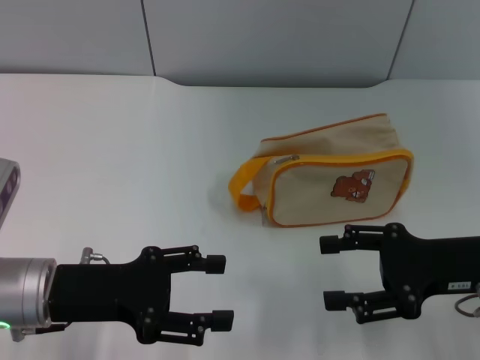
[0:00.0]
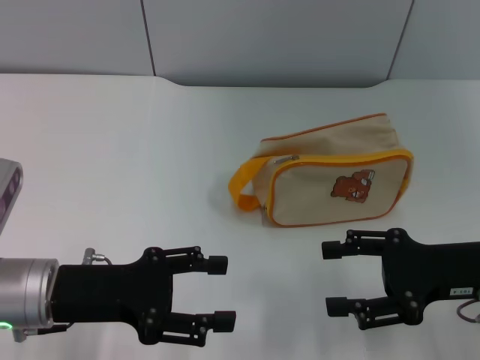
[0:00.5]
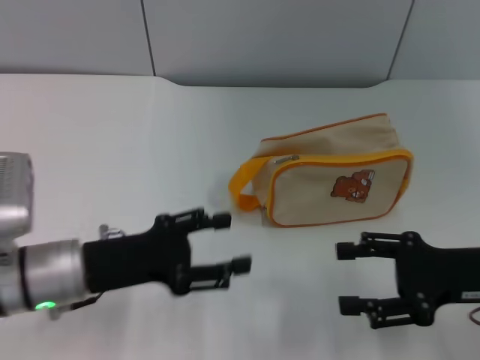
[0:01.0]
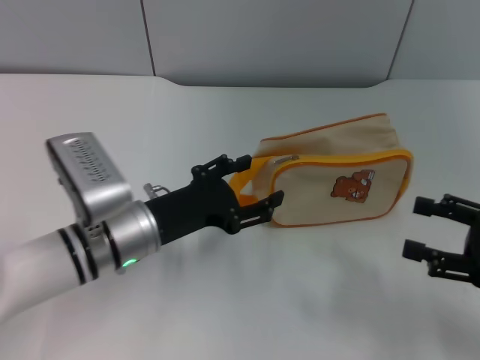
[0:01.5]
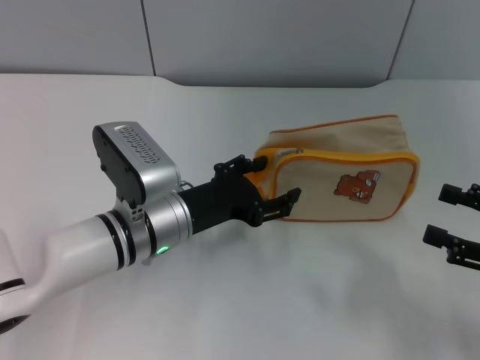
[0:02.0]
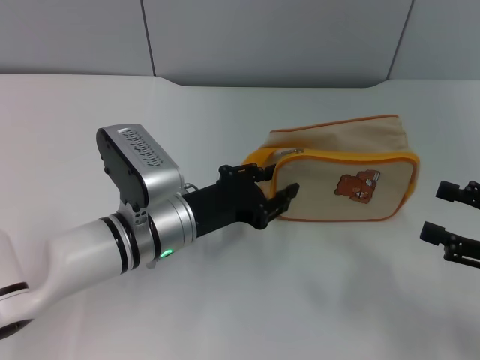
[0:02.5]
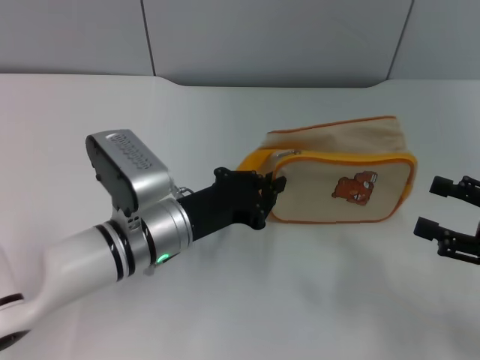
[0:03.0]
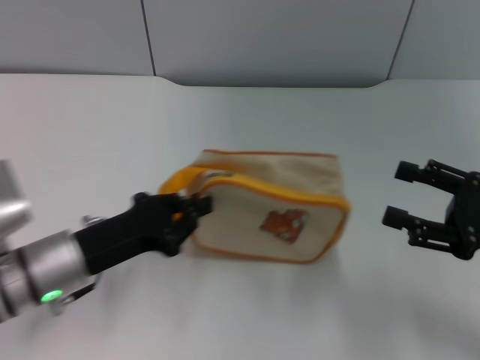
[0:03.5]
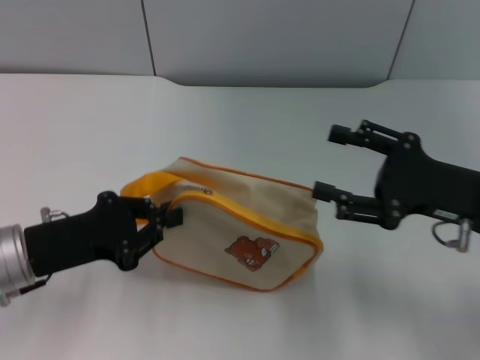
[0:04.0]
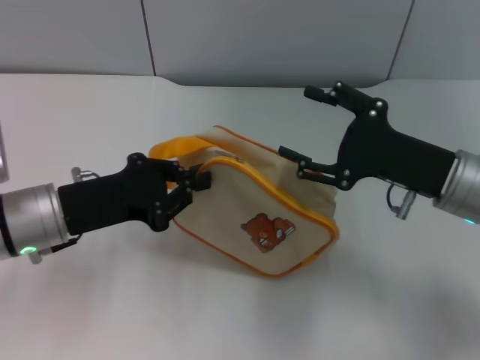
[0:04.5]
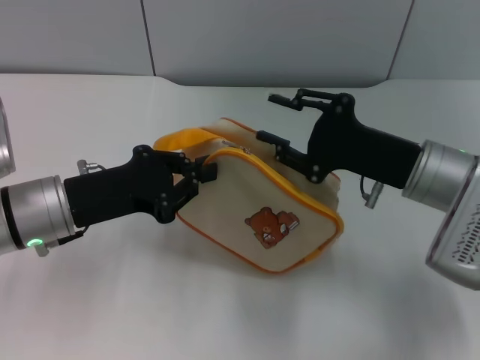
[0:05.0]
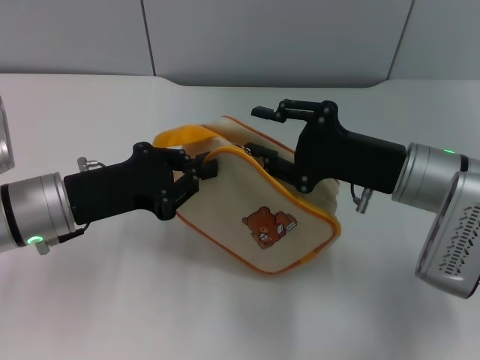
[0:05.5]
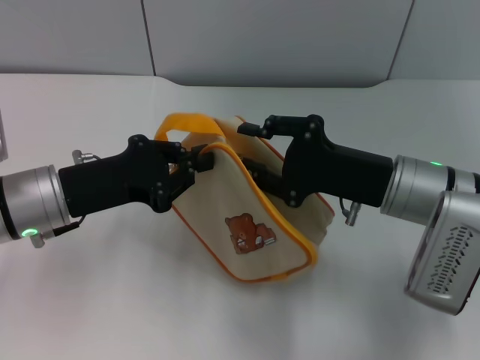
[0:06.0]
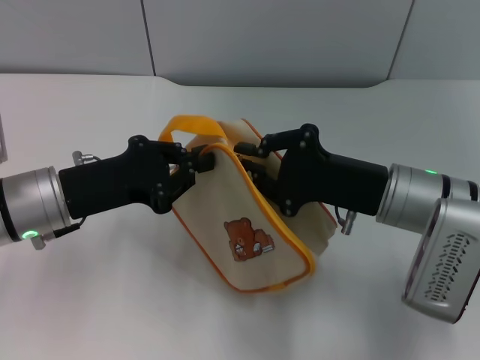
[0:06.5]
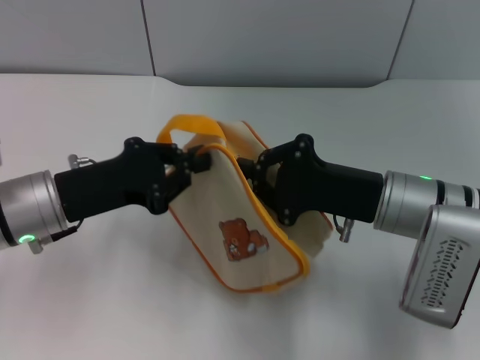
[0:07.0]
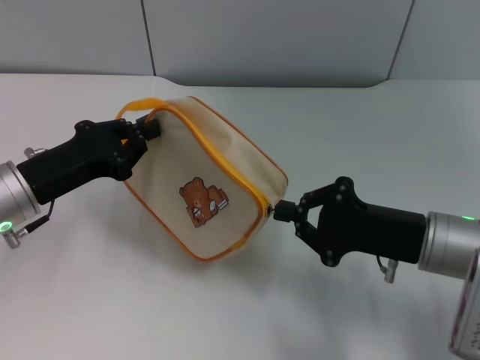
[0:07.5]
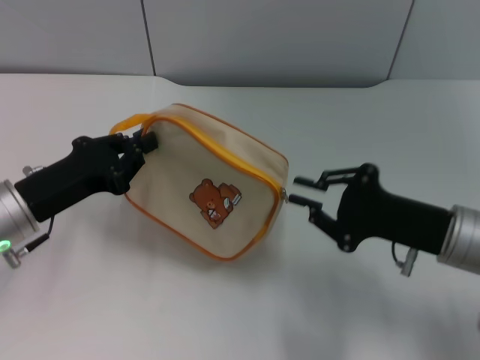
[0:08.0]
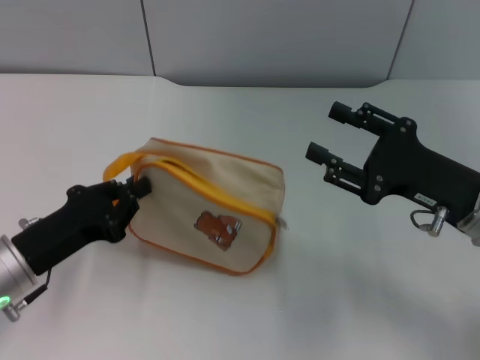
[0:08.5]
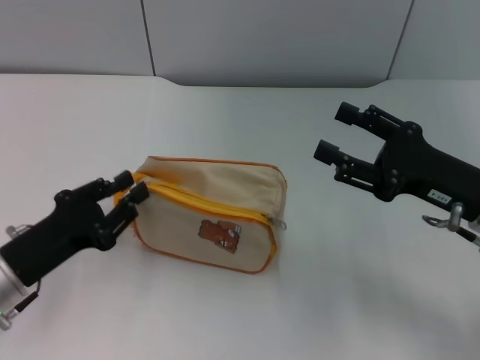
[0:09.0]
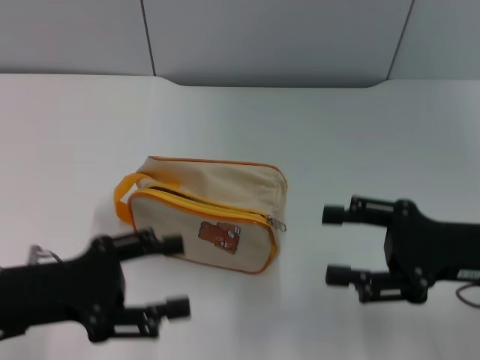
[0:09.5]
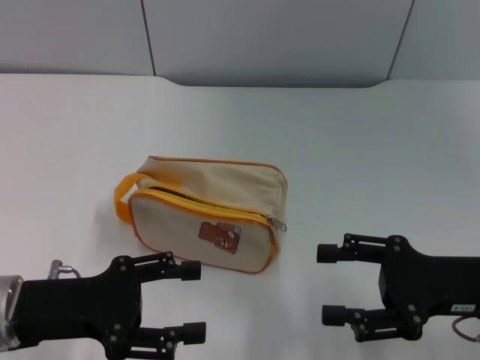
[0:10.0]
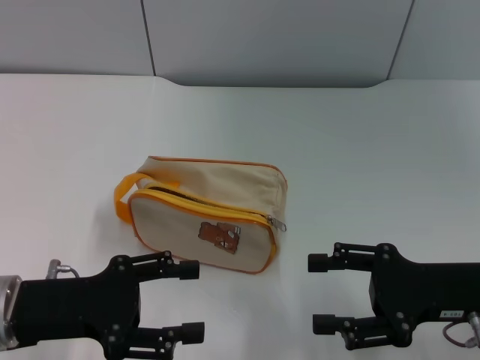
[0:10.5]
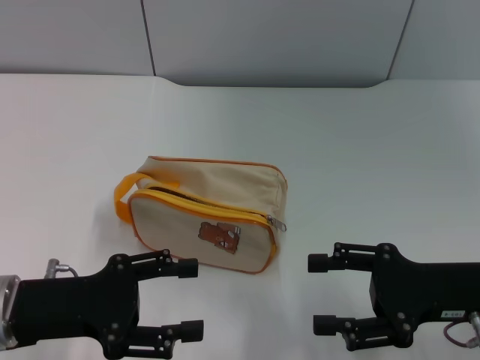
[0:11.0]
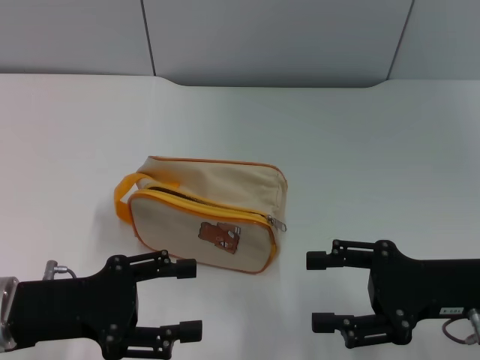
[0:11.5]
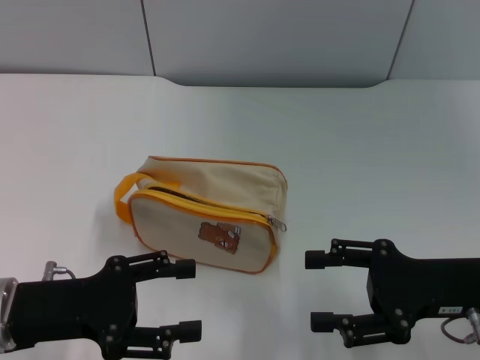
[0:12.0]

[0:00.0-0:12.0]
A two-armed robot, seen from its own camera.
Step, 0:00.0 to 0:04.0: Pick up the bag with left gripper.
Step, 0:04.5 to 0:08.0: Unzip the zipper of bag with right gripper.
Step, 0:08.5 to 0:09.0: Place the bag on the table with left gripper.
0:00.0 to 0:02.0: The right gripper heads to the right, covering roughly 10 cm. The left gripper heads to the right and forward, covering approximately 15 cm.
0:02.0 to 0:04.0: The left gripper moves to the left and backward, roughly 15 cm, and closes its fingers. The right gripper heads to the left and forward, covering about 10 cm.
0:04.0 to 0:06.0: The left gripper ends up some 5 cm from where it was. The right gripper heads to the left, covering approximately 10 cm.
0:06.0 to 0:08.0: The right gripper is displaced to the right by approximately 5 cm, and closes its fingers.
0:08.0 to 0:10.0: The right gripper ends up about 5 cm from where it was, and opens its fingers; the left gripper is displaced backward by approximately 5 cm, and opens.
0:10.0 to 0:12.0: Both grippers stay put.

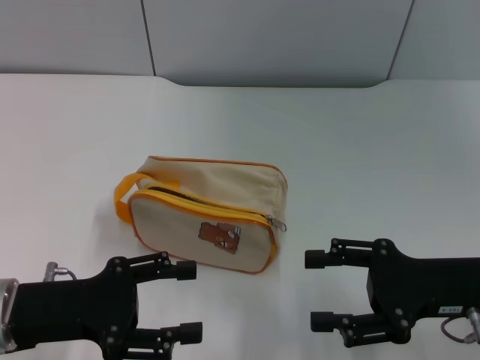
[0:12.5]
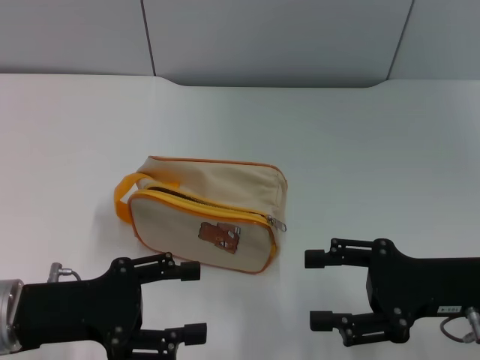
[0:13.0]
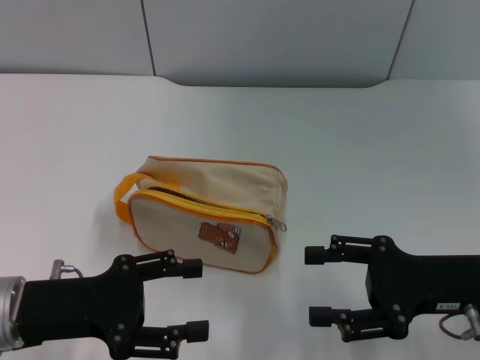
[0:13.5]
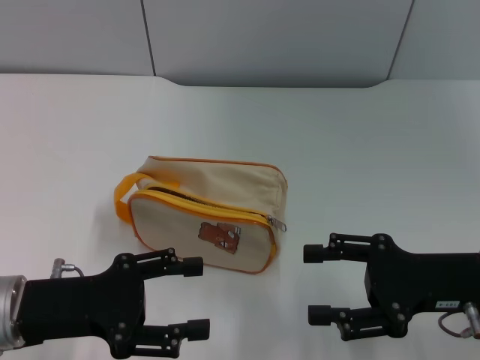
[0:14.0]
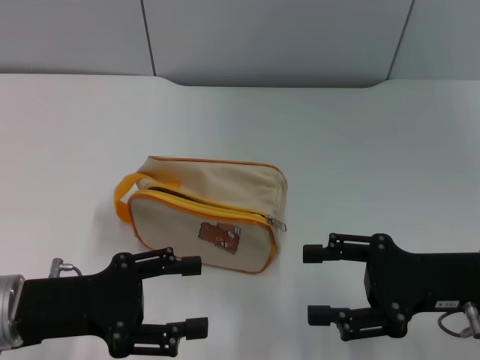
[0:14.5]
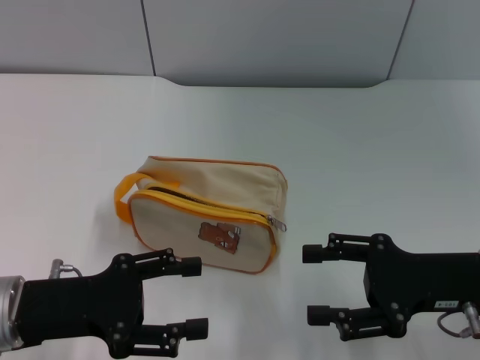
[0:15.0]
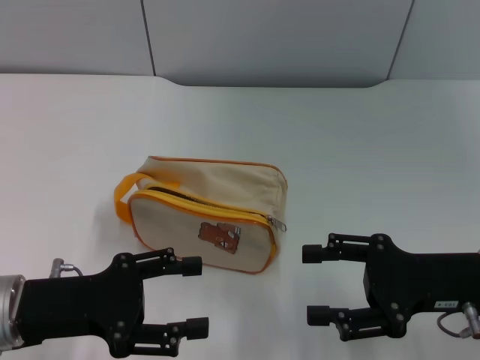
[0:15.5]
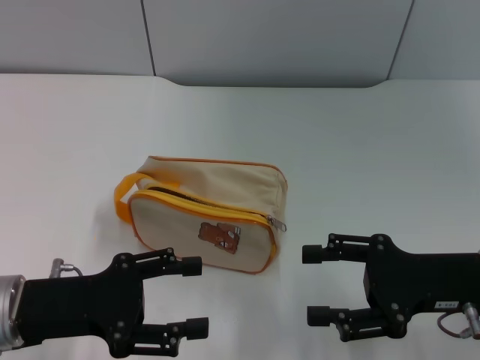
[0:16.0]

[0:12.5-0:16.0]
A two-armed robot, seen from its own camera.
0:12.5 to 0:16.0: Neither gripper changes place.

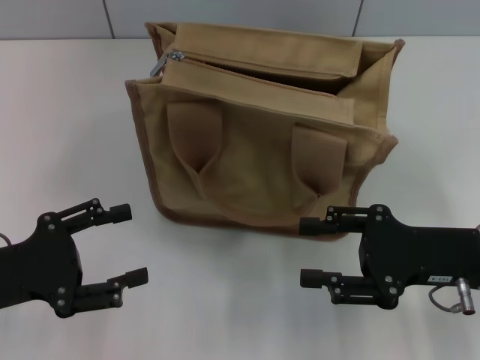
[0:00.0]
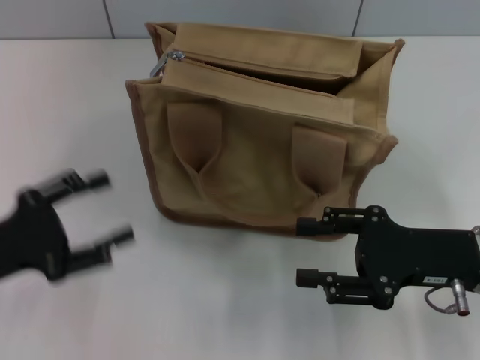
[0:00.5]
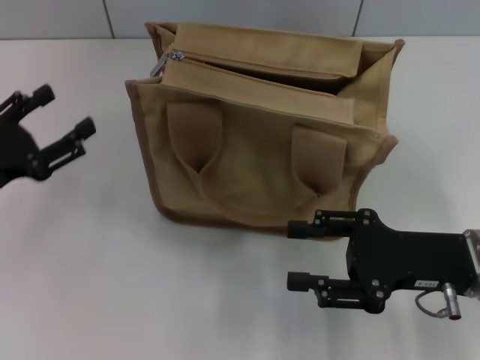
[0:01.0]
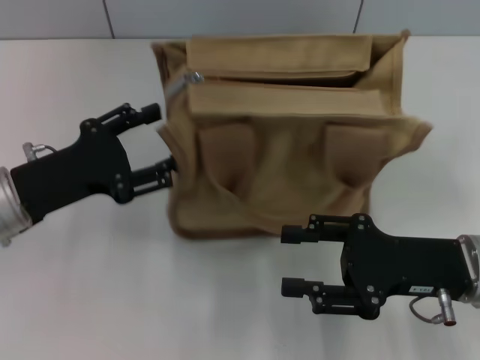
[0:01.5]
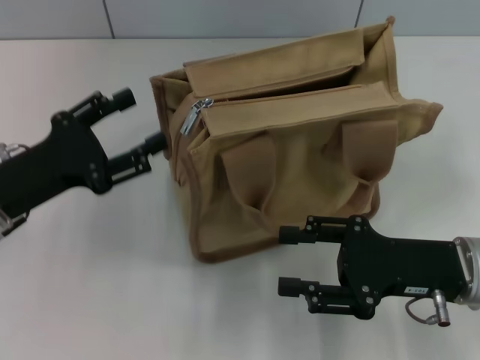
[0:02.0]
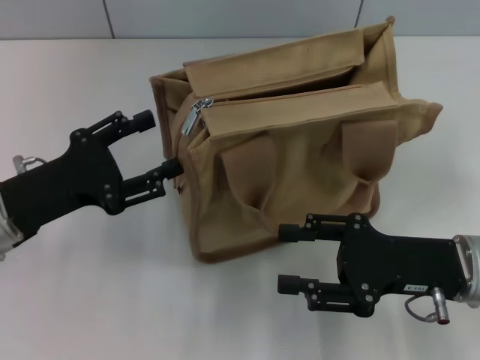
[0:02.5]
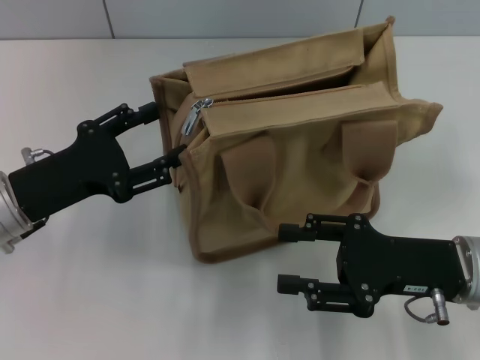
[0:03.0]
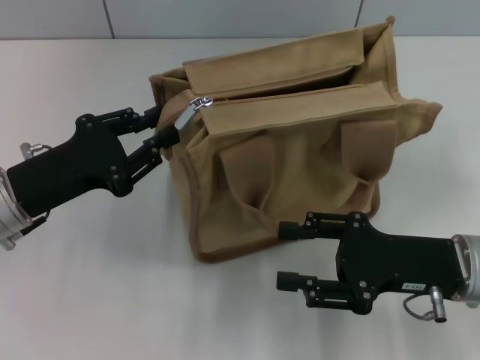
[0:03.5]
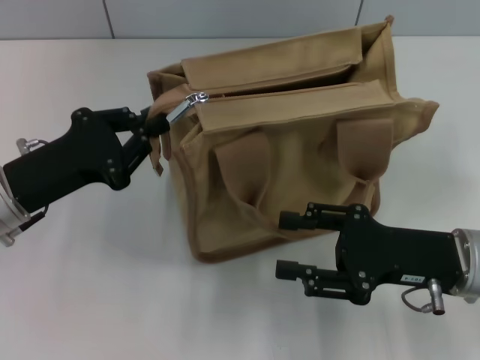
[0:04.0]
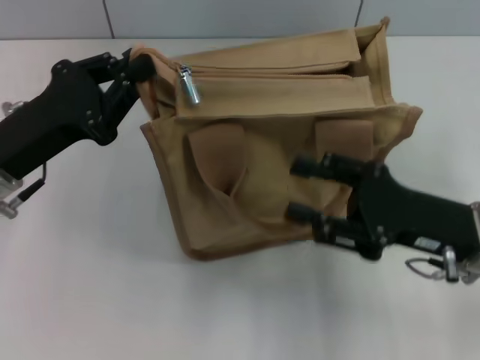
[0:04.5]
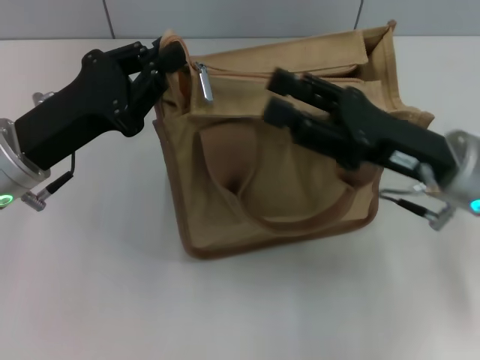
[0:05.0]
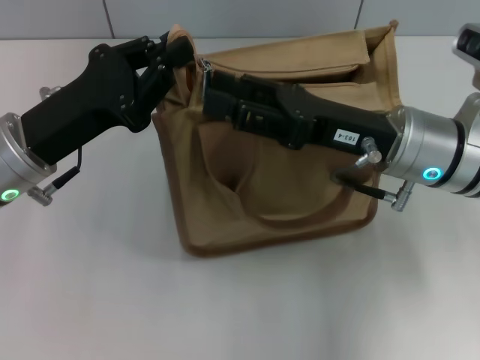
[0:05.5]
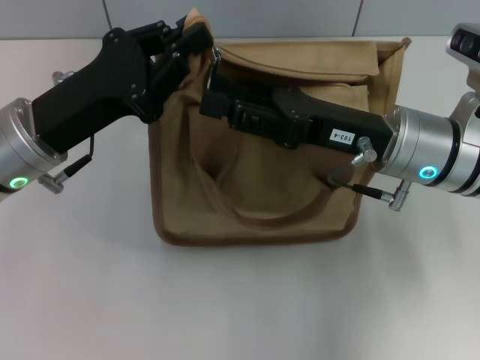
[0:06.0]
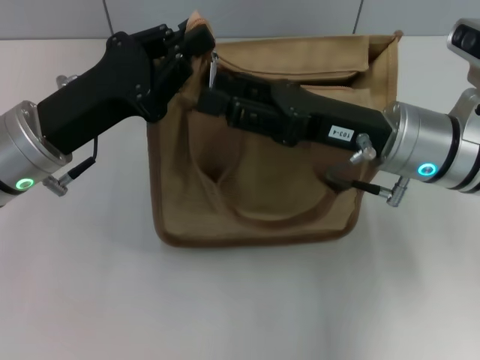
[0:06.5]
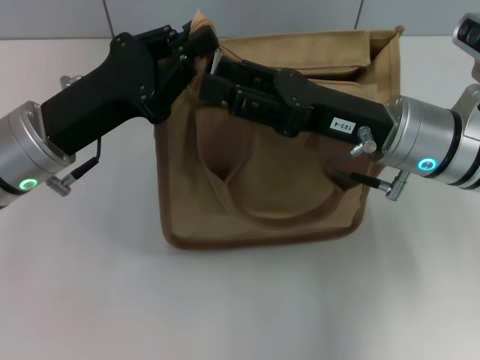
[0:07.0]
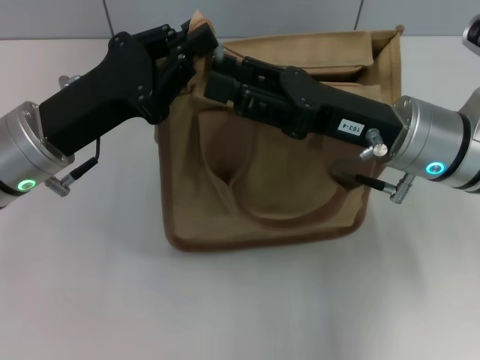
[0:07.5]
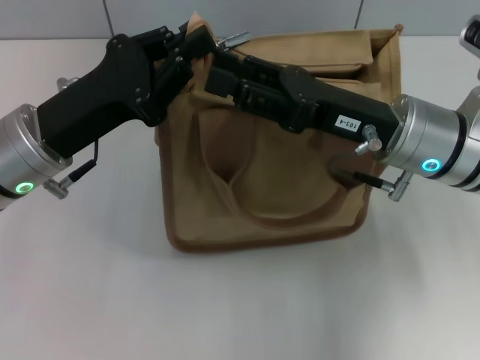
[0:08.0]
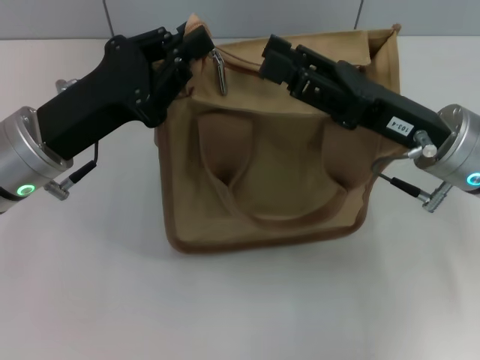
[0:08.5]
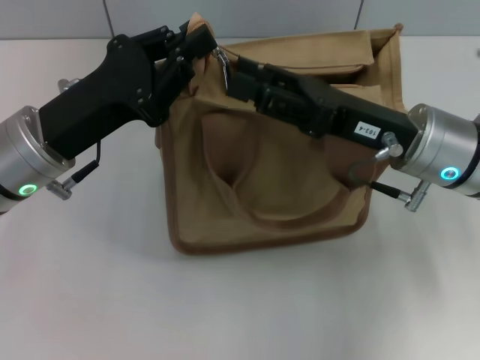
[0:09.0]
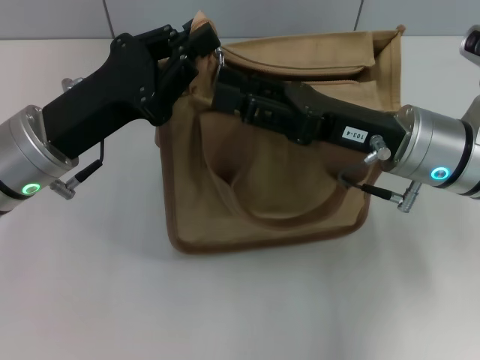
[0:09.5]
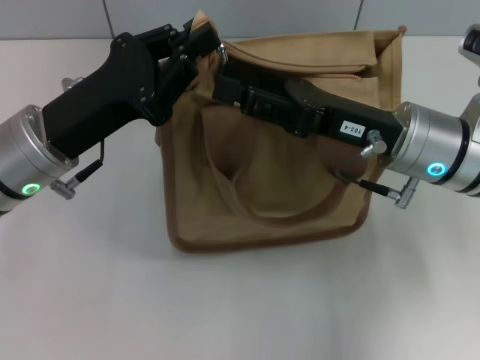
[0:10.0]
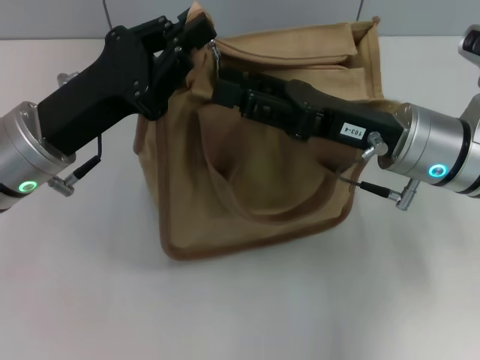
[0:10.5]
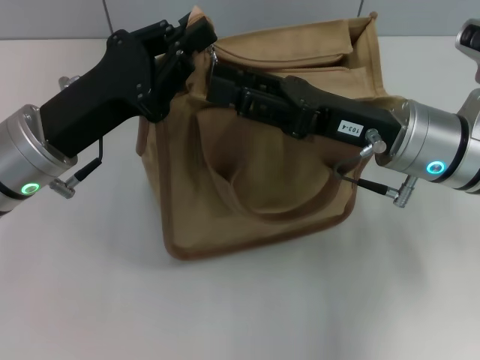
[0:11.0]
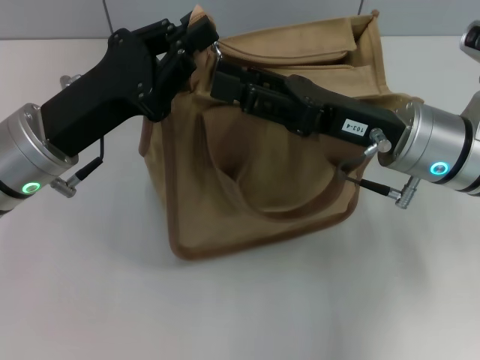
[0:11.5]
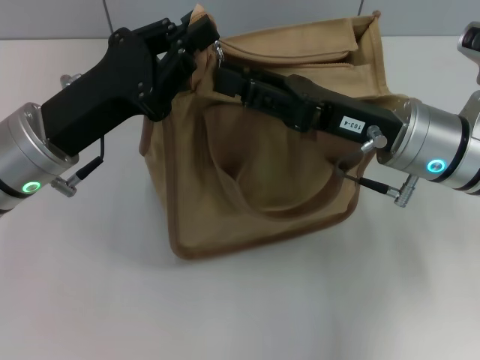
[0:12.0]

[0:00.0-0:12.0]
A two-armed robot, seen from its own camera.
0:00.0 to 0:02.0: The left gripper goes some 5 cm forward.
0:02.0 to 0:04.0: The left gripper closes up.
0:04.0 to 0:06.0: The left gripper ends up some 5 cm from where it was. Meanwhile the right gripper travels forward, to the left and upward by approximately 10 cm.
0:06.0 to 0:10.0: There are only small adjustments of the grippers.
0:10.0 to 0:12.0: The two grippers keep their place.
